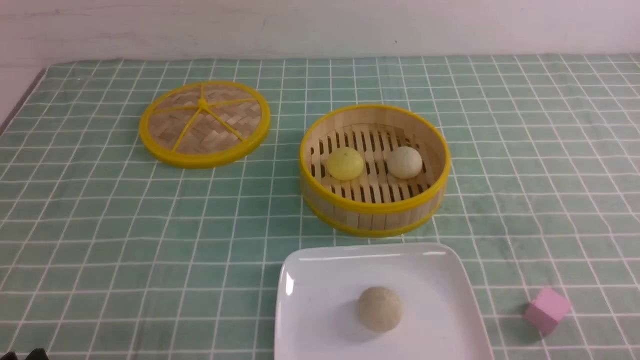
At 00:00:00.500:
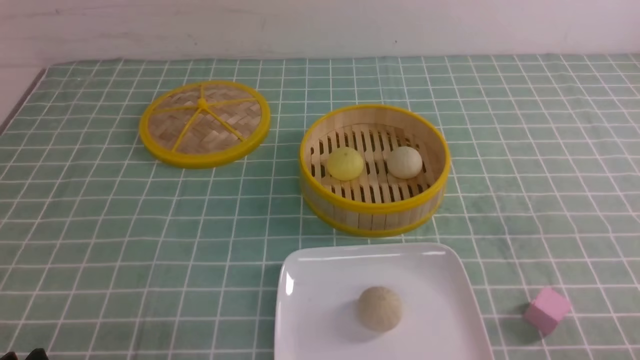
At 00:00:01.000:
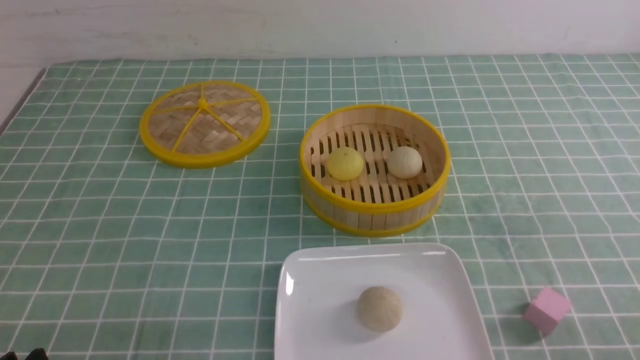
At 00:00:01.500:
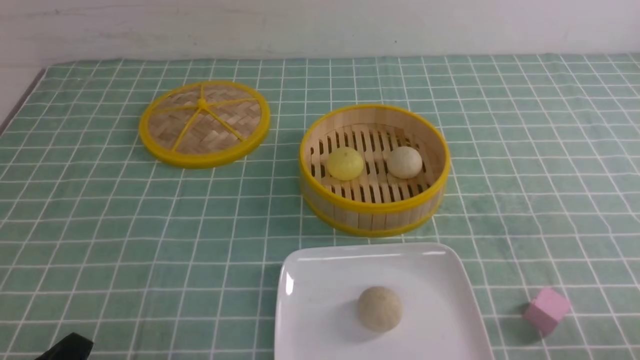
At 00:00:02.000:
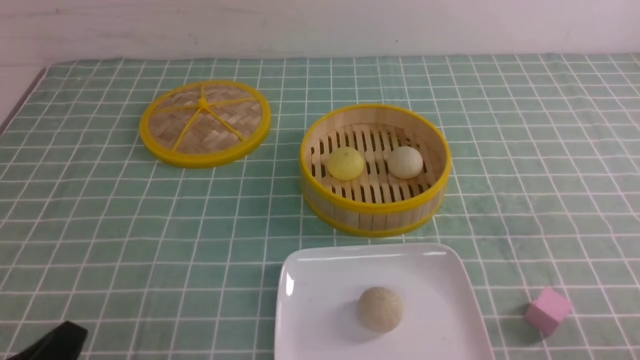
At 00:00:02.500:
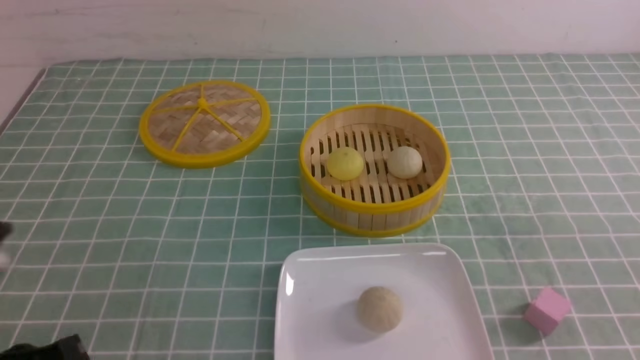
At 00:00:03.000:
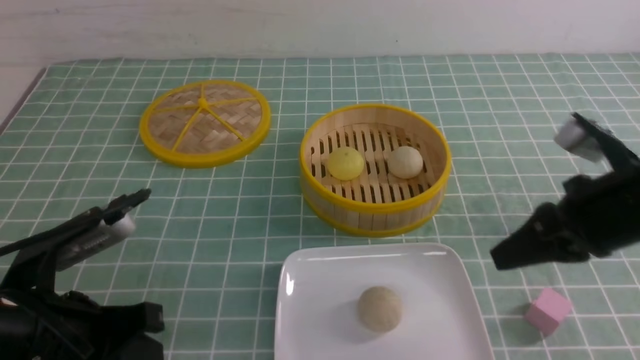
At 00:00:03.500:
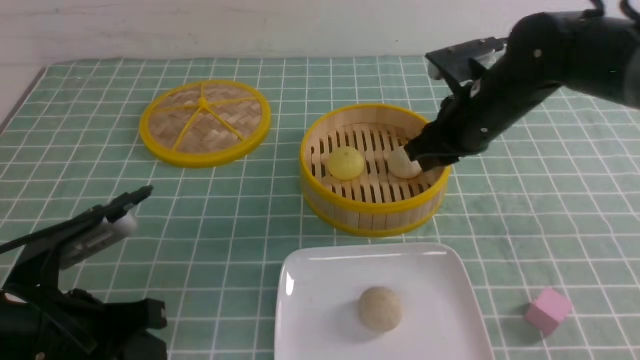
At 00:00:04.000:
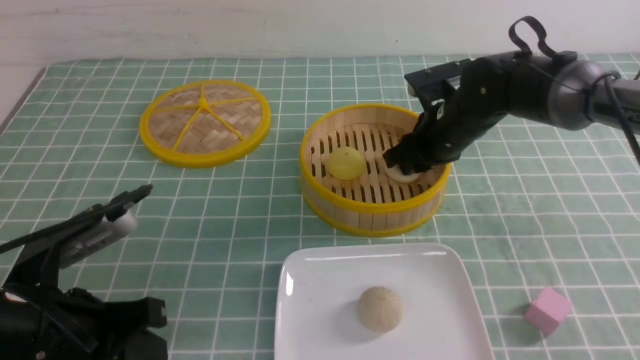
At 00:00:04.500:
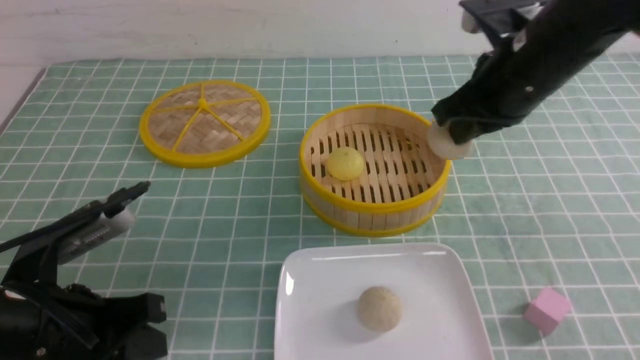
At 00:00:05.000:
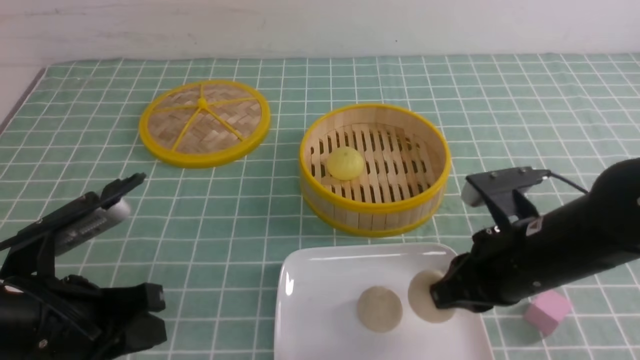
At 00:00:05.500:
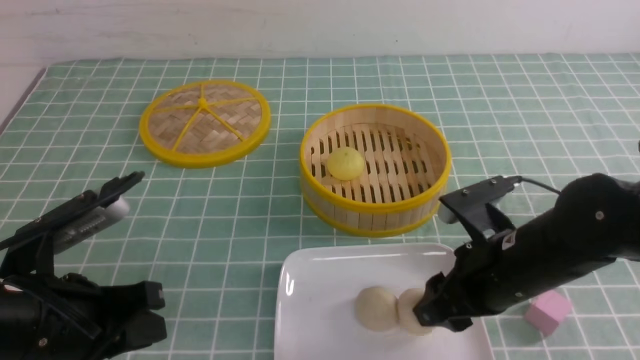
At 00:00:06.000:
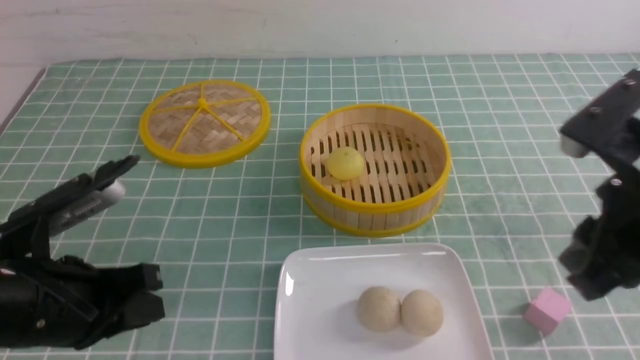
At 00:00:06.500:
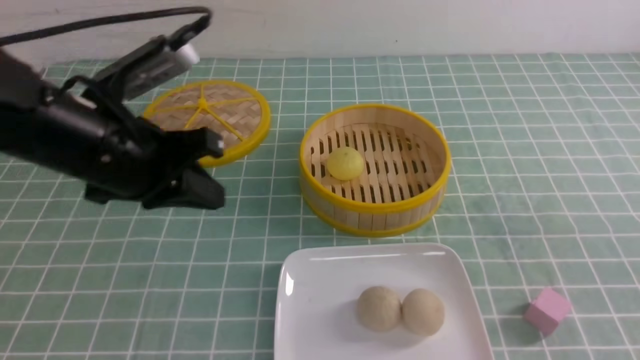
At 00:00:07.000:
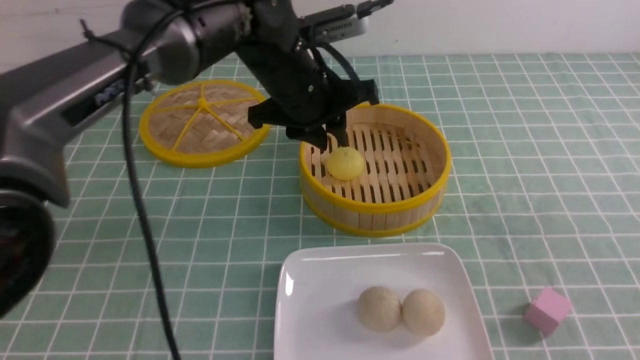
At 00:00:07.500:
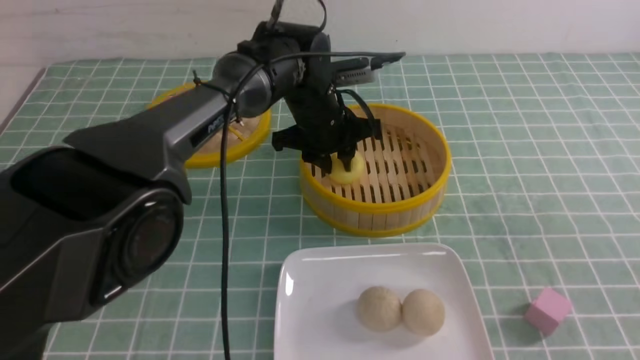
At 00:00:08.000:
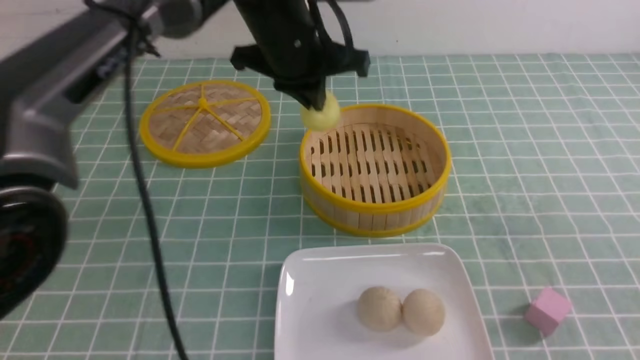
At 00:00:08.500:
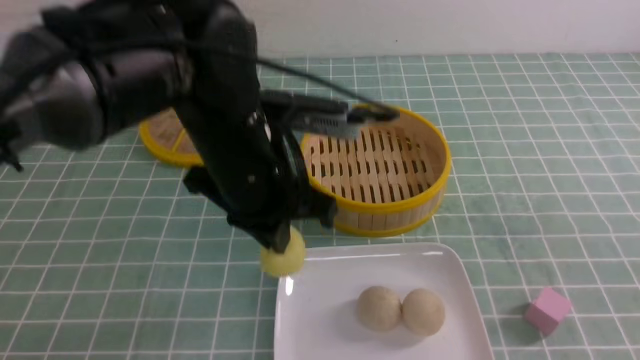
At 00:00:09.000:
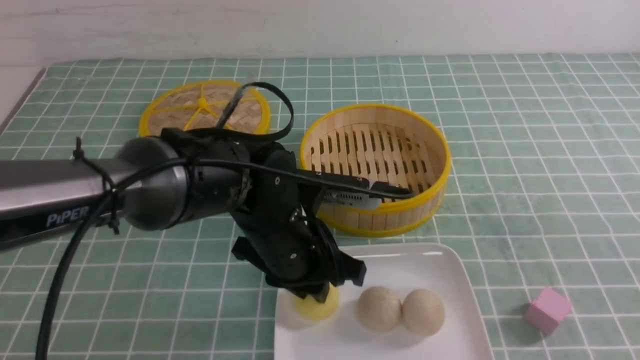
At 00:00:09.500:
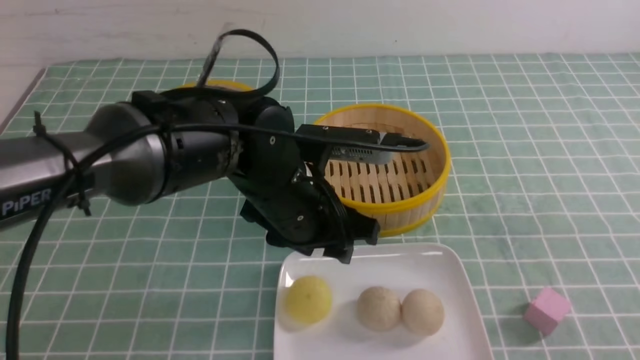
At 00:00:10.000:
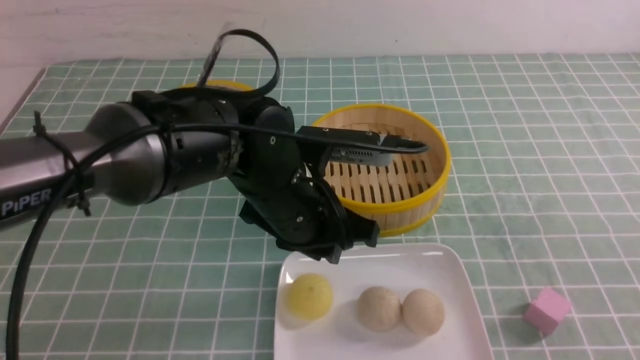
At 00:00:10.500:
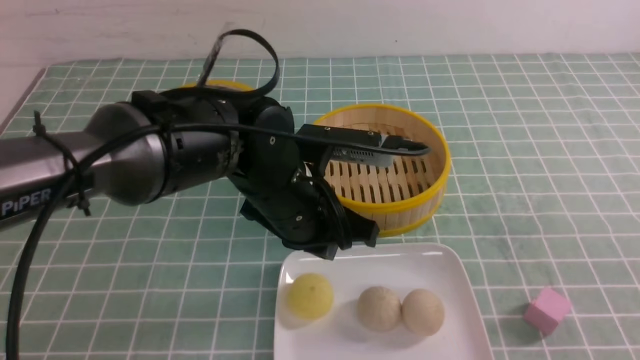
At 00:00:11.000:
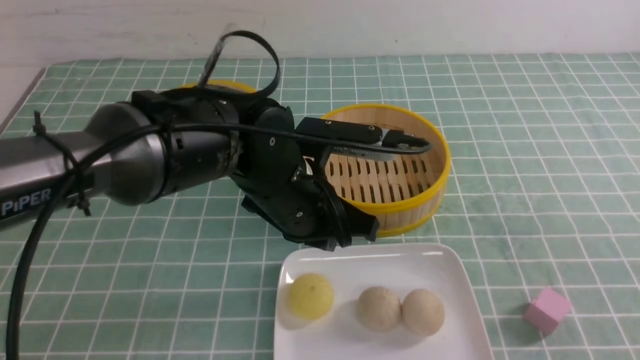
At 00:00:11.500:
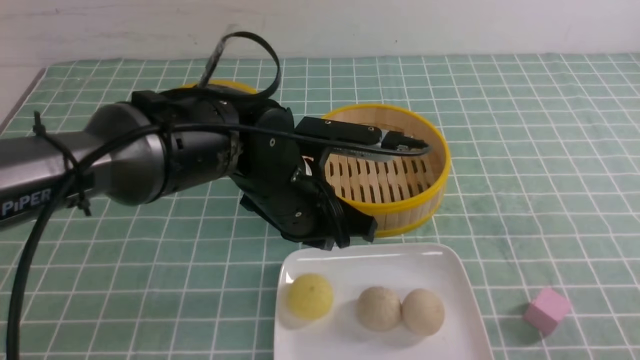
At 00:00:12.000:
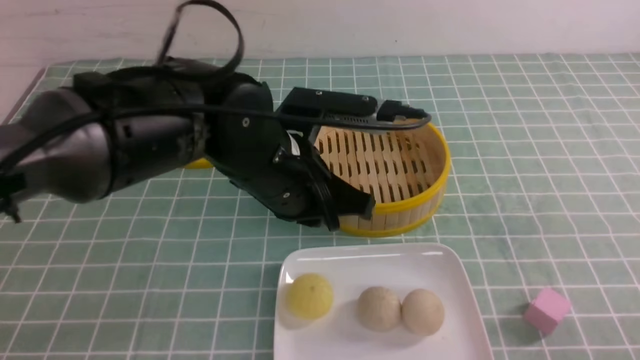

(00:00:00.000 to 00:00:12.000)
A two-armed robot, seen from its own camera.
Step, 00:00:00.000 - 00:00:04.000: use the right arm to grab the steamed stuffed bun that is closest to it.
Step, 00:00:04.500 - 00:00:05.500: use the right arm to put the steamed stuffed bun into the plate.
Step, 00:00:06.000 - 00:00:07.500: use the left arm to grab the steamed stuffed bun that is closest to it.
Step, 00:00:08.000 - 00:00:09.000: use the left arm to put the steamed stuffed bun into the plate.
00:00:02.000 - 00:00:04.000: The left gripper moves forward, approximately 10 cm. Meanwhile the right gripper heads forward and to the left, covering about 40 cm.
00:00:04.000 - 00:00:06.000: The right gripper travels backward and upward by roughly 30 cm, and closes, then opens again.
00:00:06.000 - 00:00:08.000: The right gripper moves backward and to the right, about 10 cm, and closes; the left gripper shifts approximately 30 cm forward, to the right and upward, and opens, then closes once more.
00:00:08.000 - 00:00:10.000: The left gripper moves downward and backward, about 15 cm, and opens up, while the right gripper heads backward, covering about 5 cm.
00:00:10.000 - 00:00:12.000: The left gripper closes up; the right gripper moves downward, roughly 10 cm.

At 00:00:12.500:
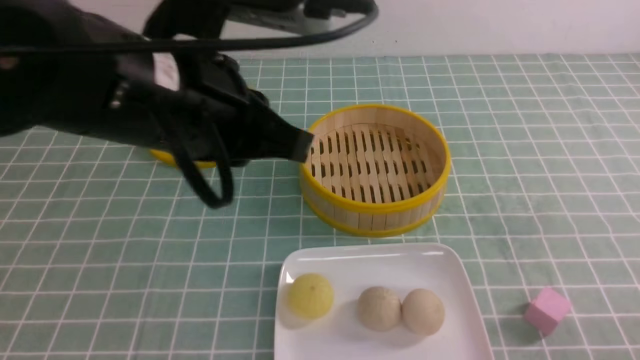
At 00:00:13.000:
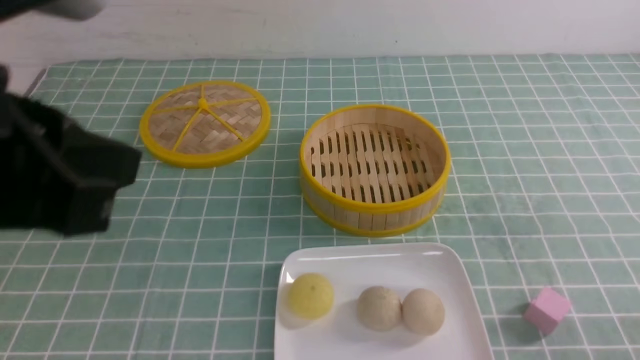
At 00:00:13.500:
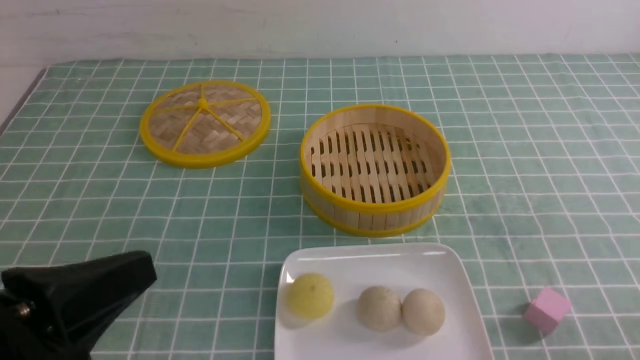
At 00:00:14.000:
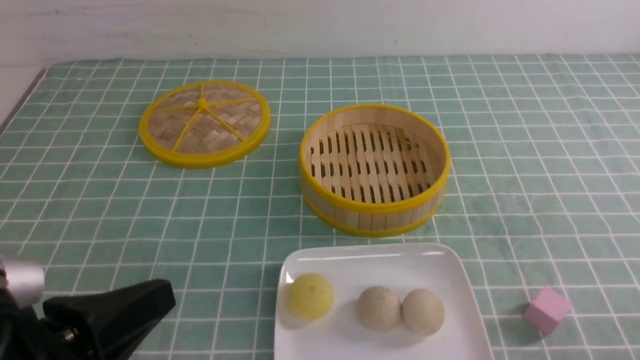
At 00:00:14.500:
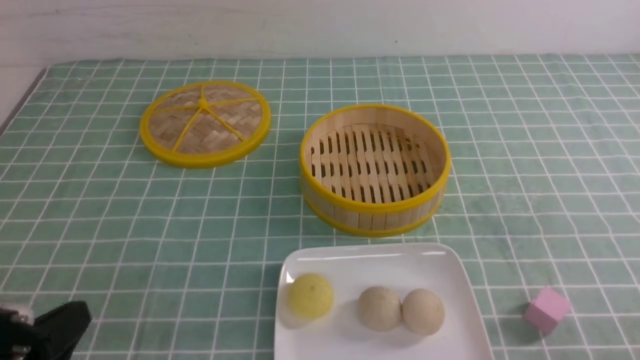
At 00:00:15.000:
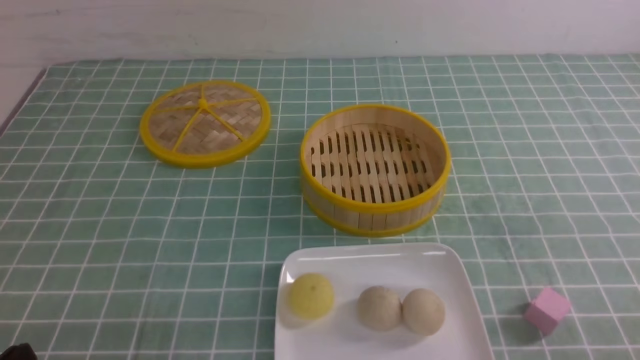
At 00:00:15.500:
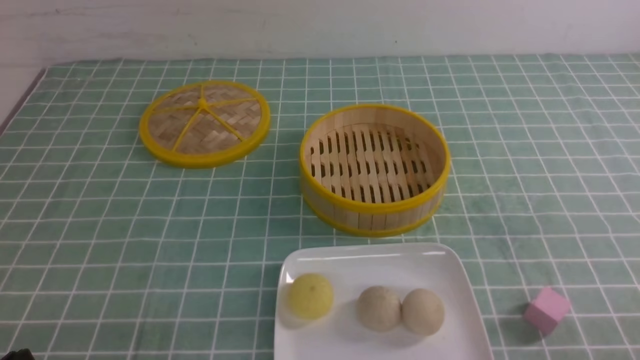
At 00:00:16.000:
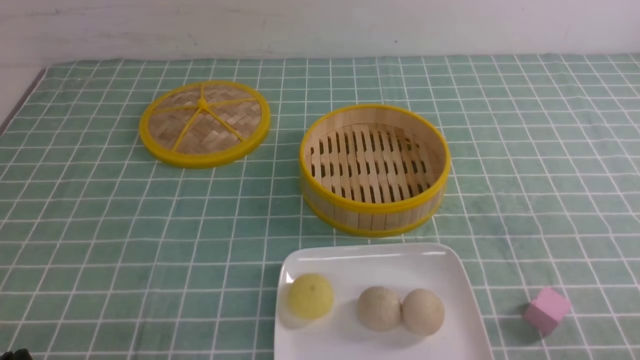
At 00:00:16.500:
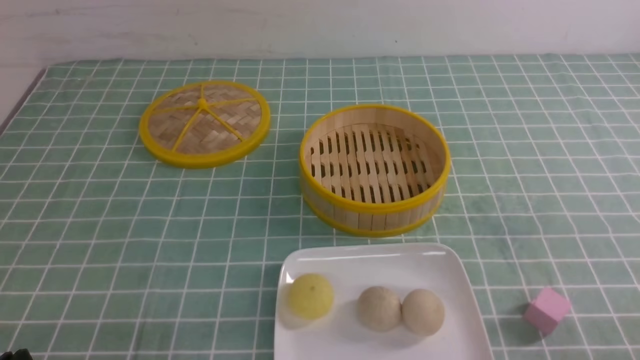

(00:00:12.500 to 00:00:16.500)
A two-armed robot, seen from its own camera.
00:00:12.500 - 00:00:14.500: The left gripper is displaced downward, to the left and backward by some 25 cm.
00:00:14.500 - 00:00:16.500: The left gripper heads downward, covering about 5 cm.
